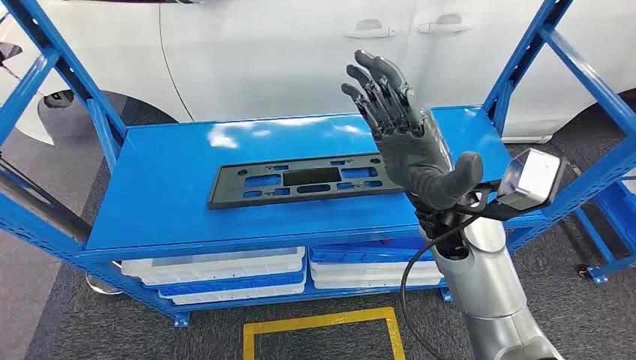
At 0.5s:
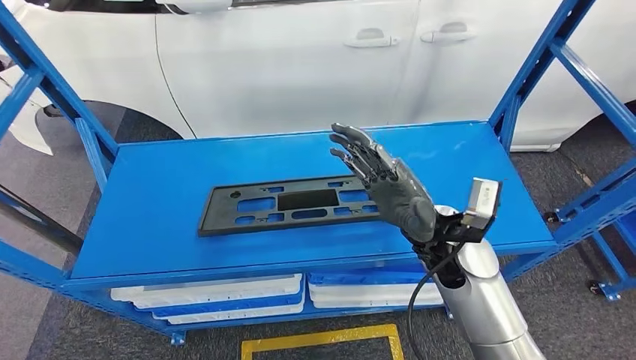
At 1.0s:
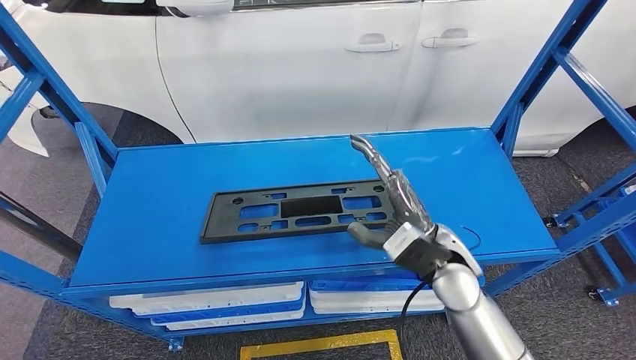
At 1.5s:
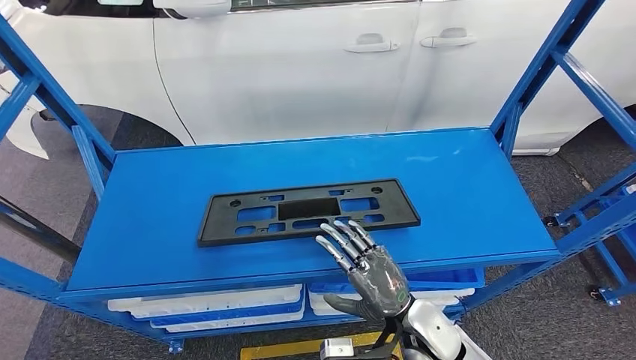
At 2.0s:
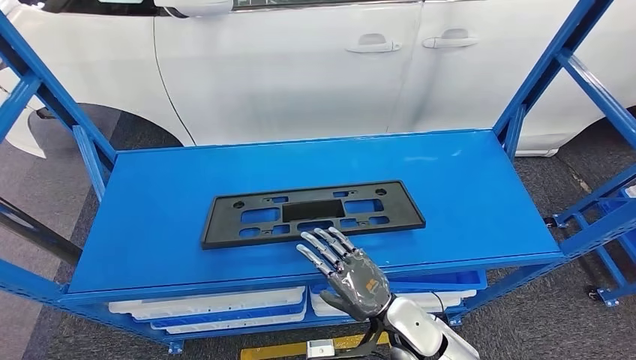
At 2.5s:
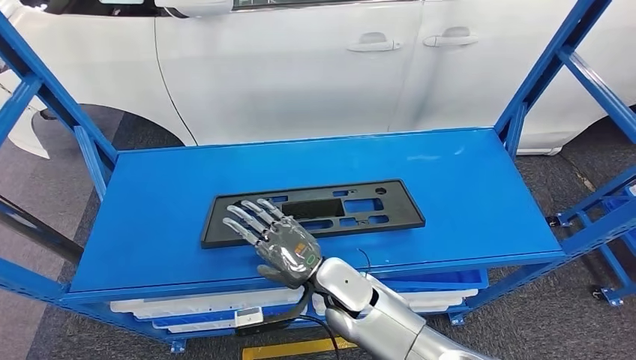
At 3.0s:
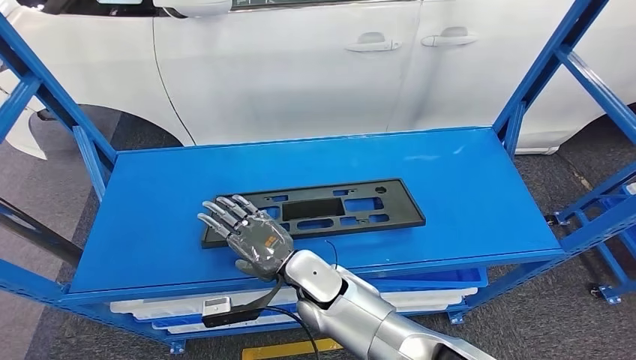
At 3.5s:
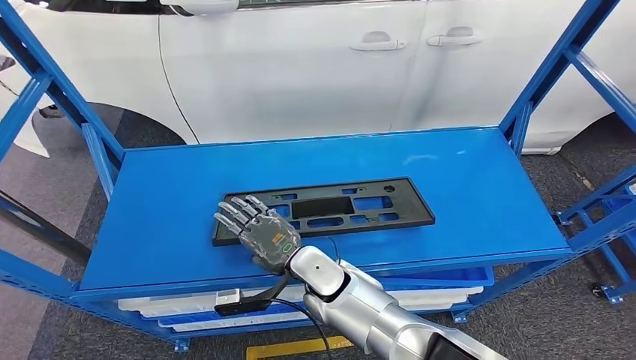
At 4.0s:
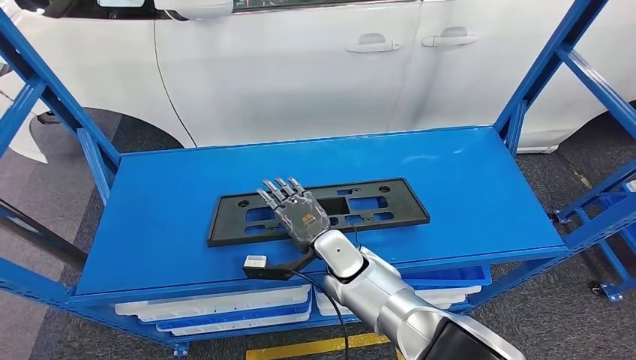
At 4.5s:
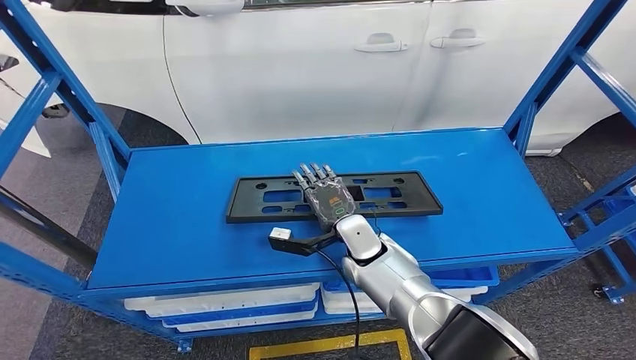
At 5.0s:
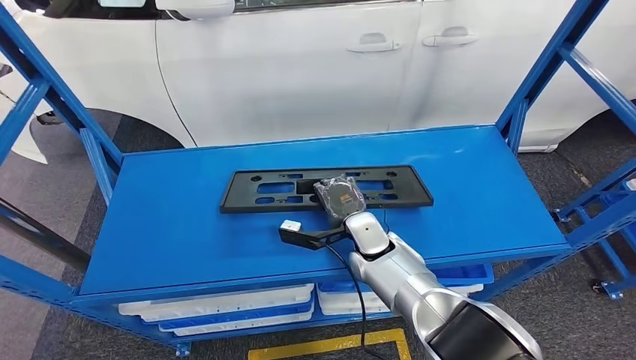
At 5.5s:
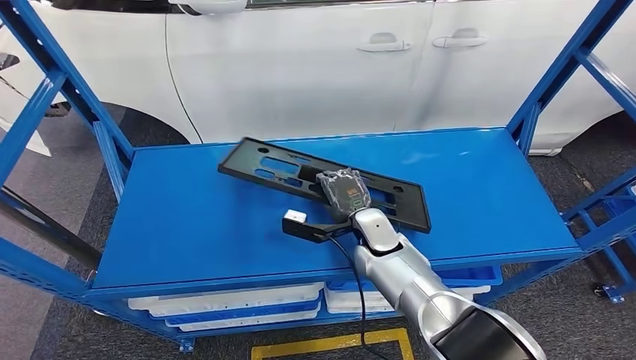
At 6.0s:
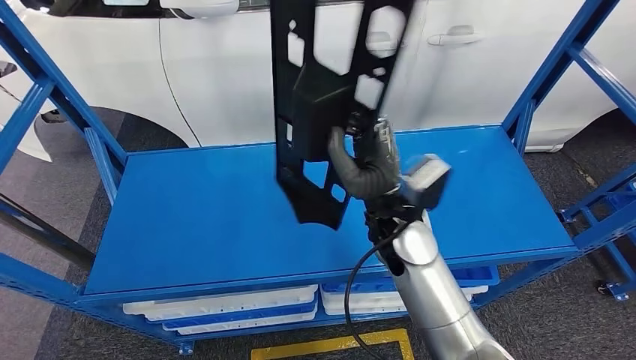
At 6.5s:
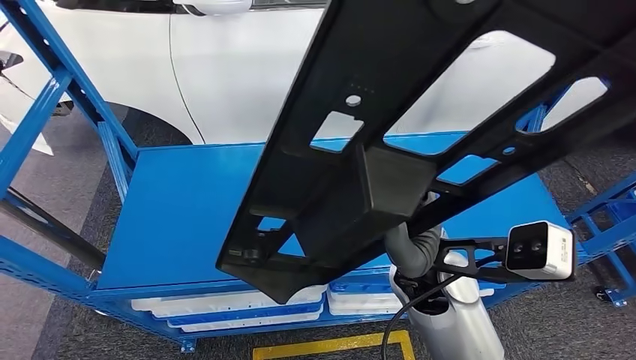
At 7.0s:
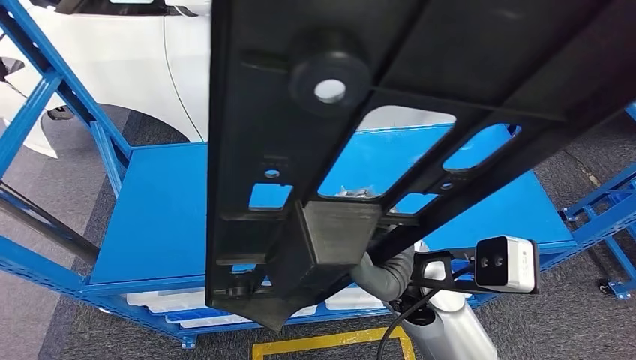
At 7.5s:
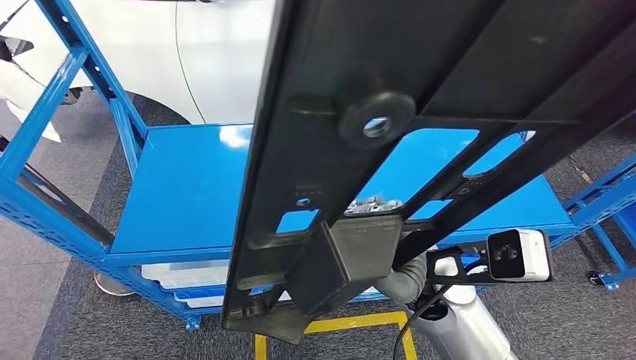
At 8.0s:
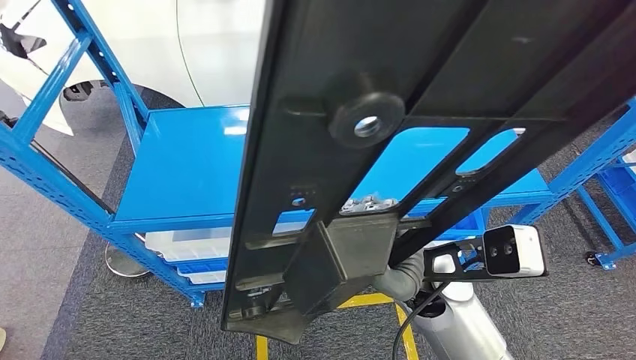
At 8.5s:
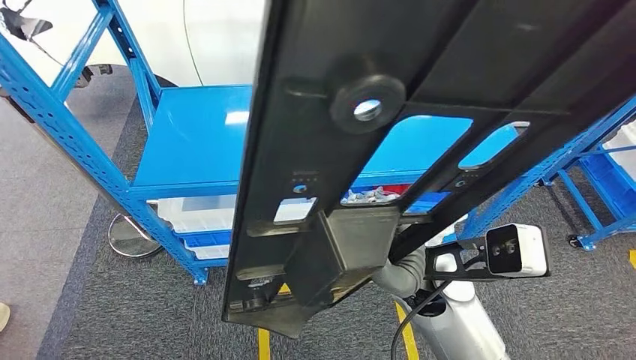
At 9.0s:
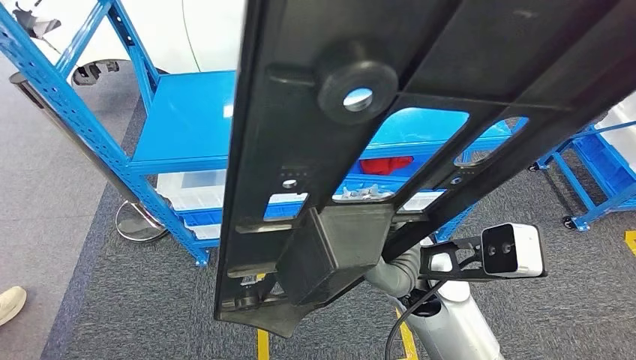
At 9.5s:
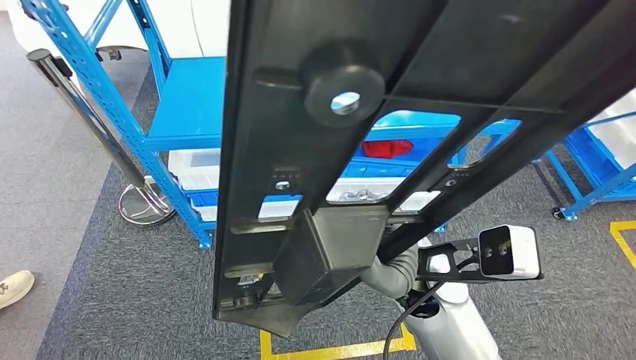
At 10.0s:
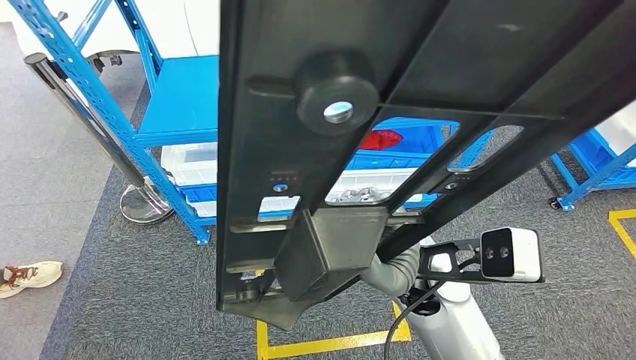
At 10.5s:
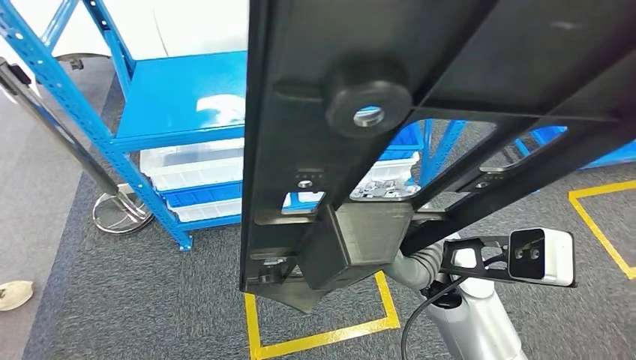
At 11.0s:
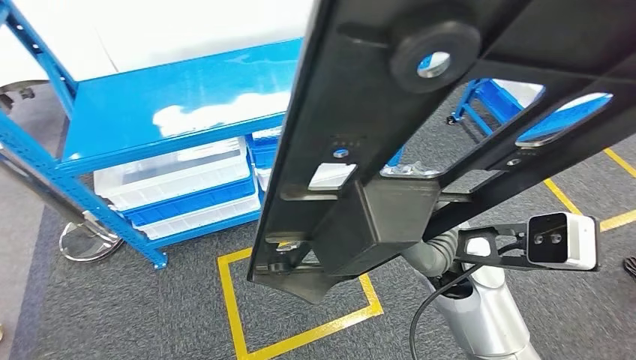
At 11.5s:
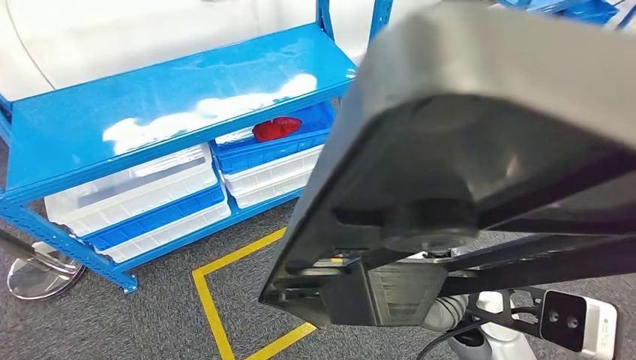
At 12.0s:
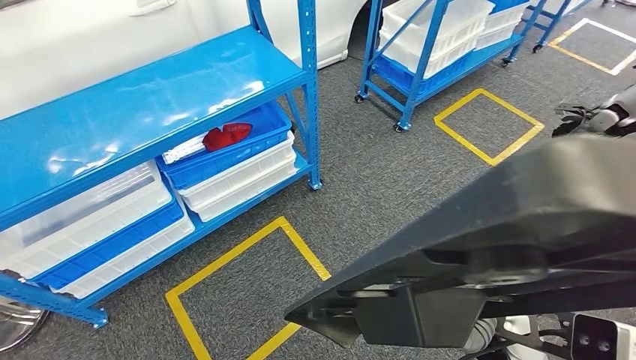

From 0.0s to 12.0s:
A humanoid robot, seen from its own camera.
Step, from 0.0s to 6.0s: Pick up the small component from the shelf.
From 2.0s to 4.0s: The right hand shifts approximately 15 cm to the left and forward.

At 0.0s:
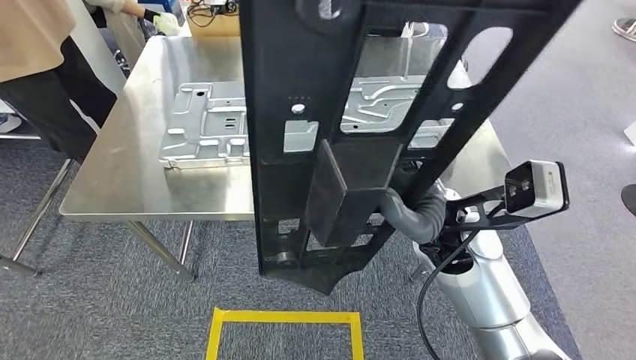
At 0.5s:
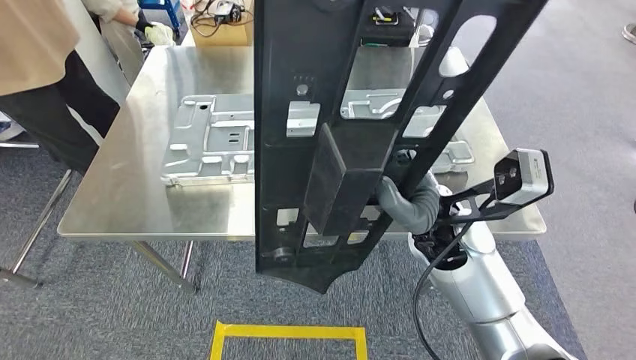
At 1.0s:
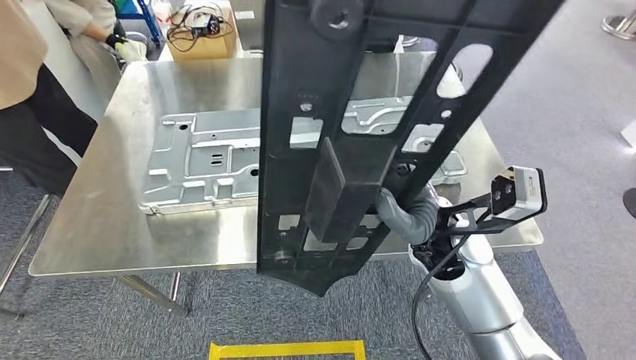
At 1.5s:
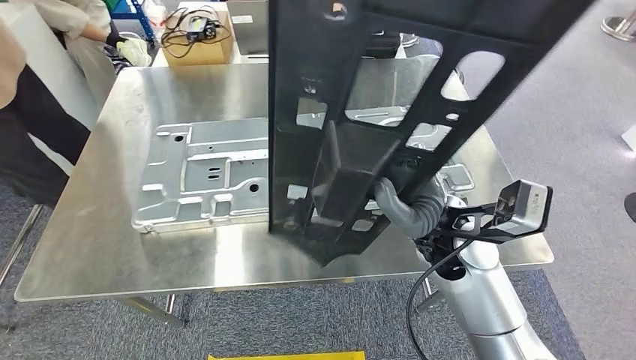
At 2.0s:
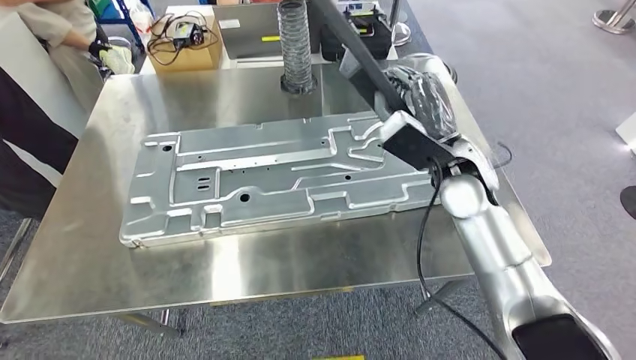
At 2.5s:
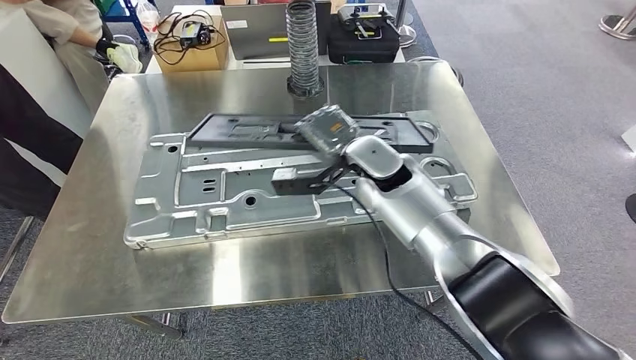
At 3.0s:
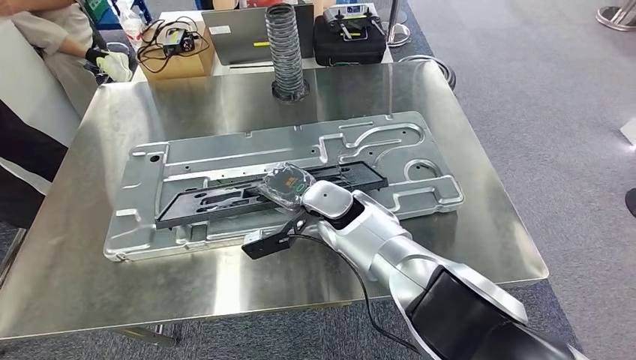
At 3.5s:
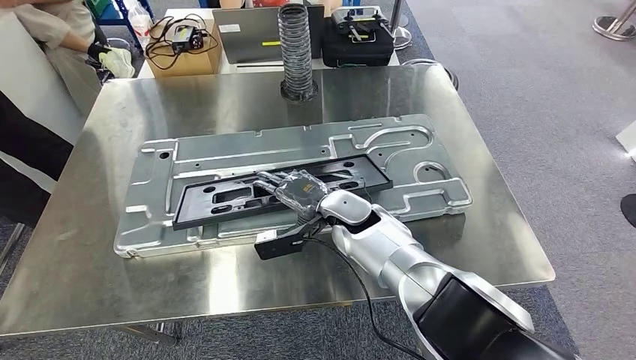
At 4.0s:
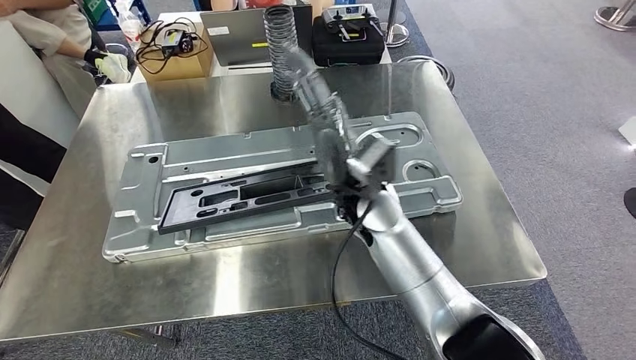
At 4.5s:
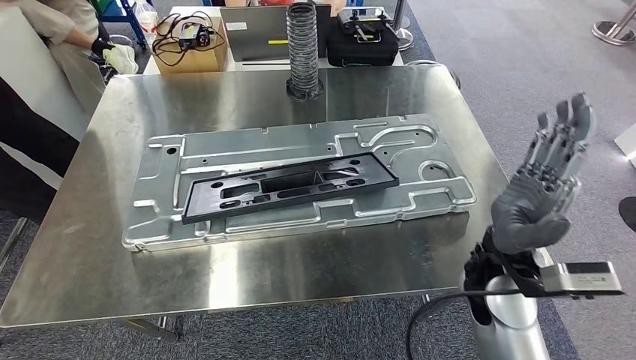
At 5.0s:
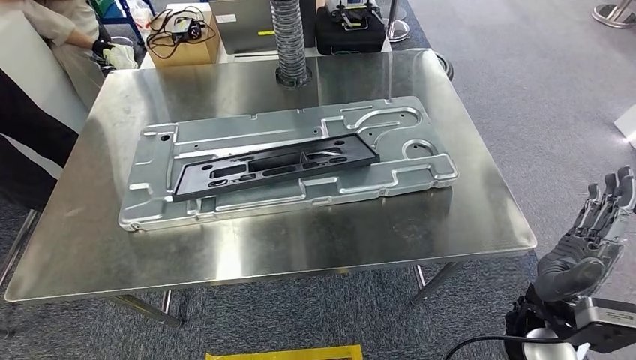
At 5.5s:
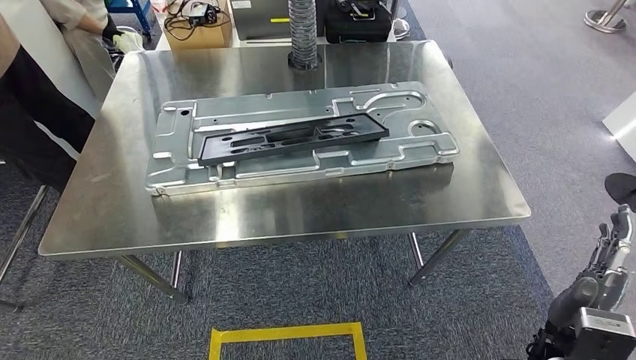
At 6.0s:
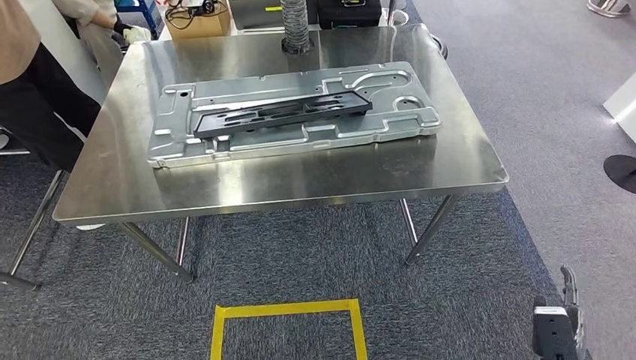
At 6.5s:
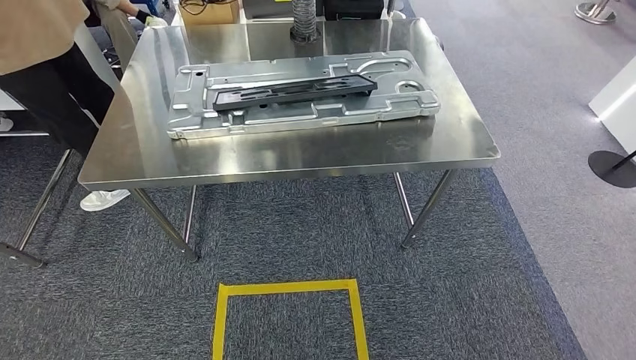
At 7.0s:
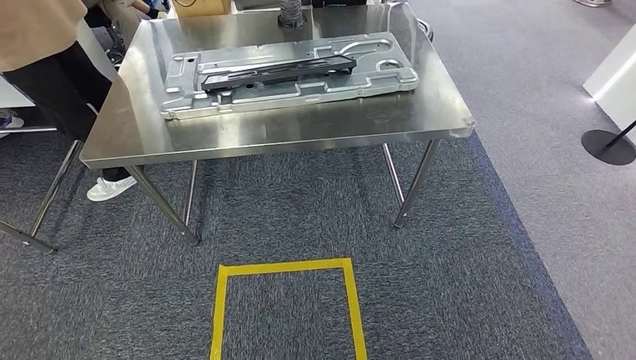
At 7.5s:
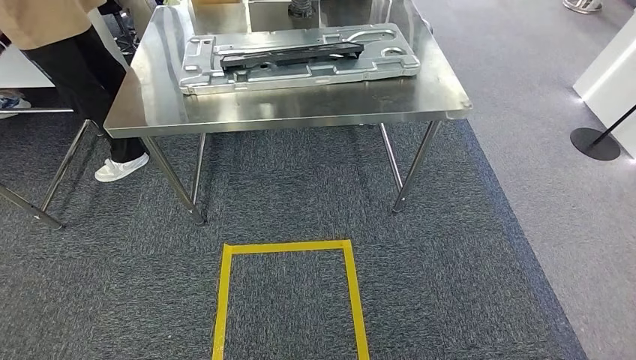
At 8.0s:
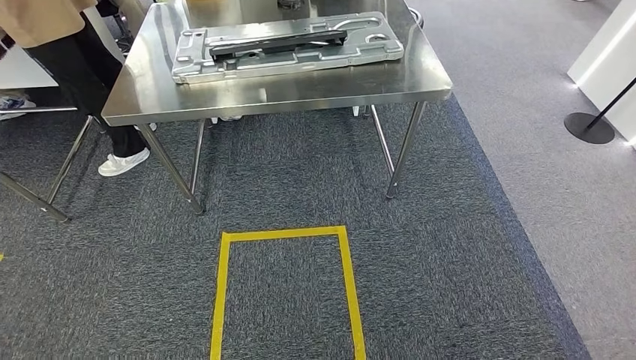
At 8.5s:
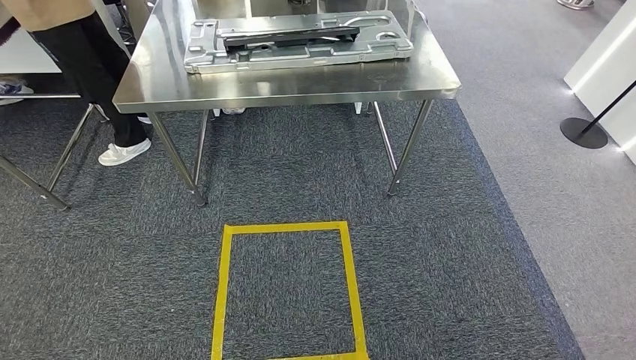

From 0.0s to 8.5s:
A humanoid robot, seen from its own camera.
Step, from 1.0s to 4.5s: Insert the small component into the corresponding slot on the workbench.
Step, from 5.5s to 8.5s: Return to the initial position at the workbench.
